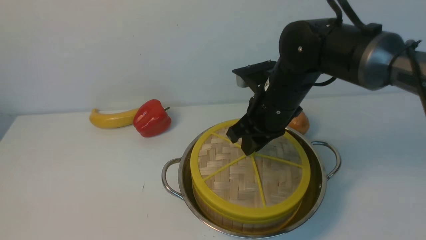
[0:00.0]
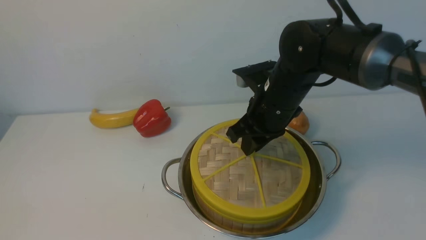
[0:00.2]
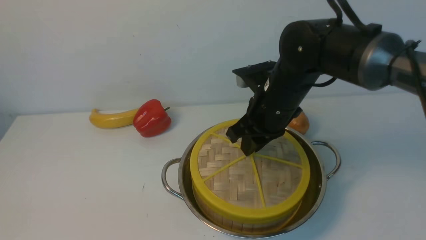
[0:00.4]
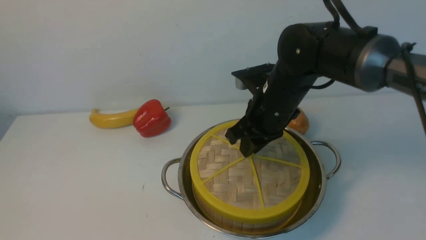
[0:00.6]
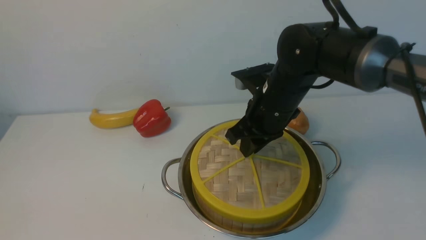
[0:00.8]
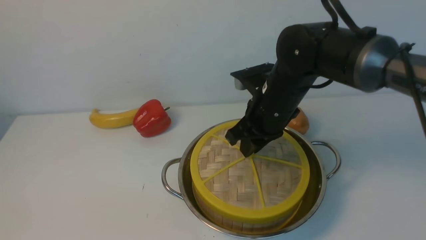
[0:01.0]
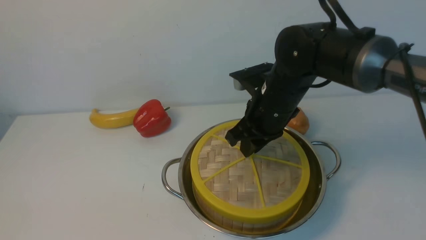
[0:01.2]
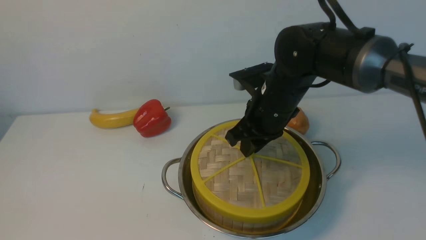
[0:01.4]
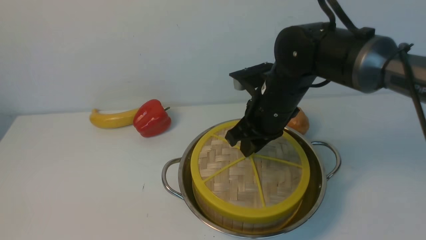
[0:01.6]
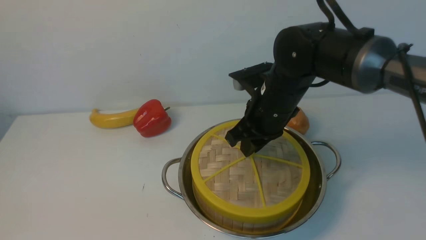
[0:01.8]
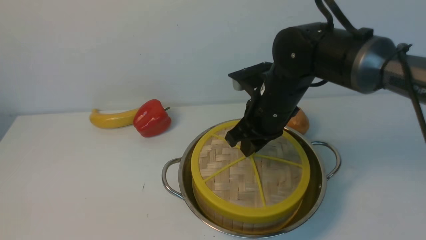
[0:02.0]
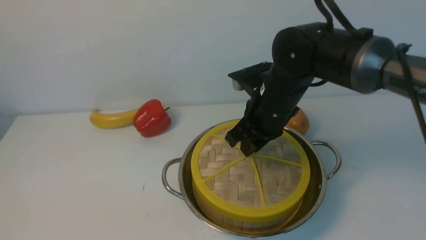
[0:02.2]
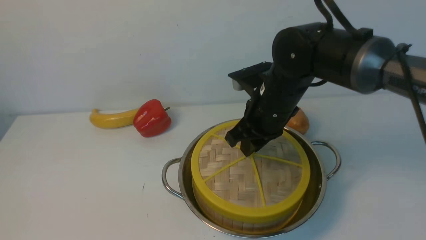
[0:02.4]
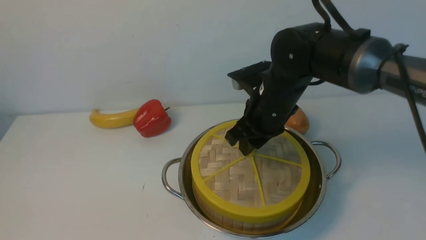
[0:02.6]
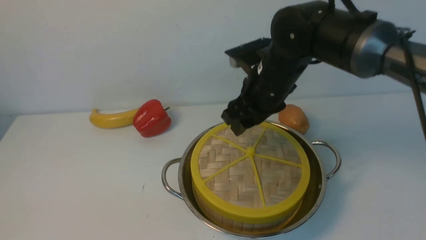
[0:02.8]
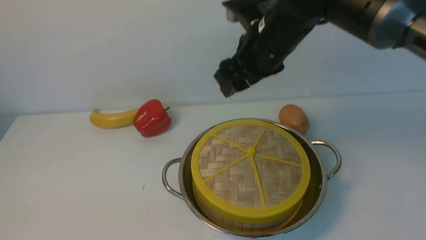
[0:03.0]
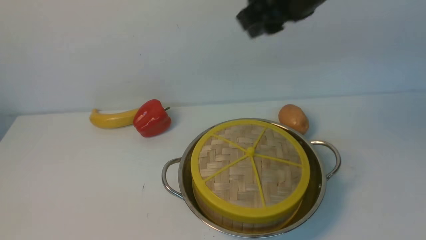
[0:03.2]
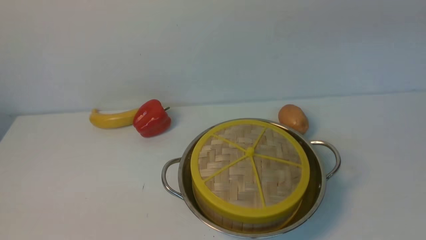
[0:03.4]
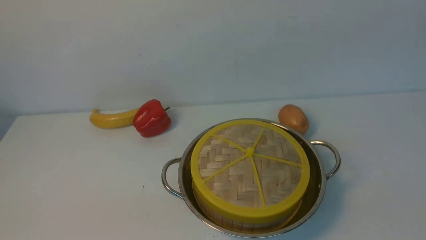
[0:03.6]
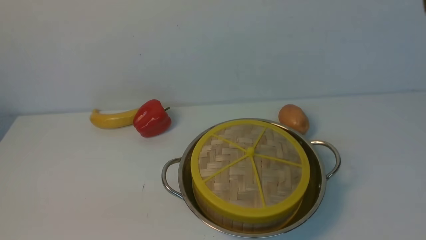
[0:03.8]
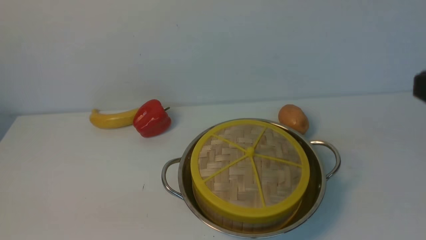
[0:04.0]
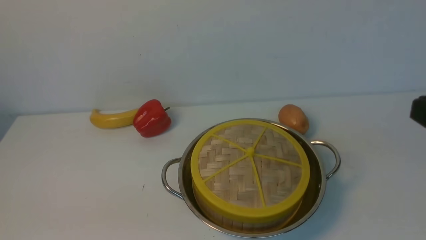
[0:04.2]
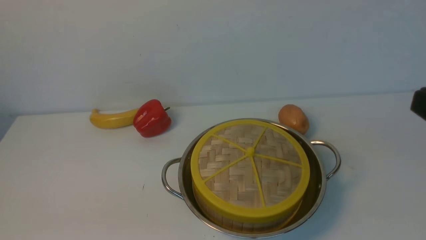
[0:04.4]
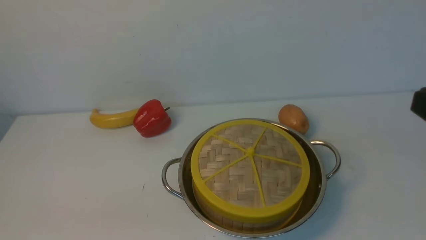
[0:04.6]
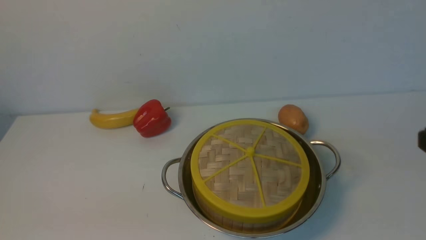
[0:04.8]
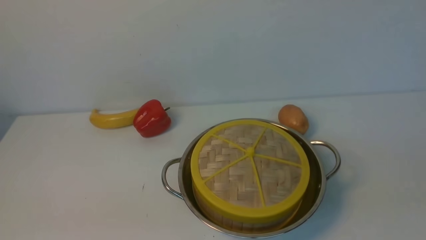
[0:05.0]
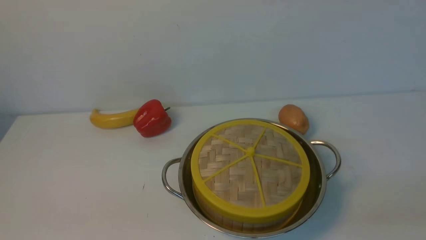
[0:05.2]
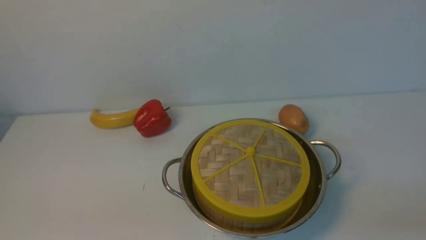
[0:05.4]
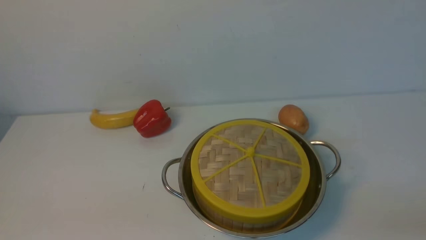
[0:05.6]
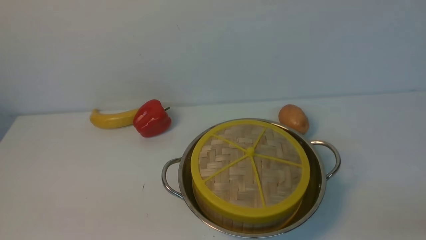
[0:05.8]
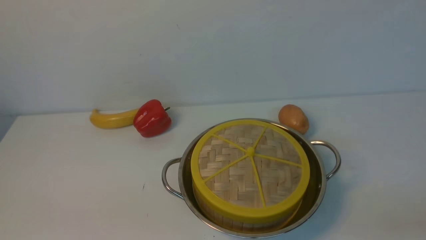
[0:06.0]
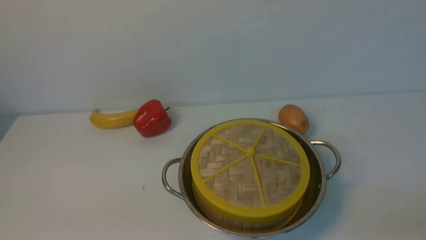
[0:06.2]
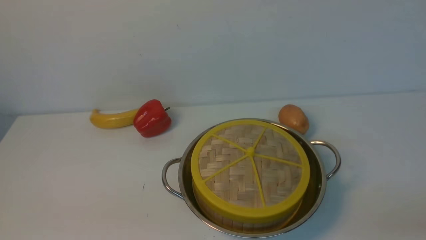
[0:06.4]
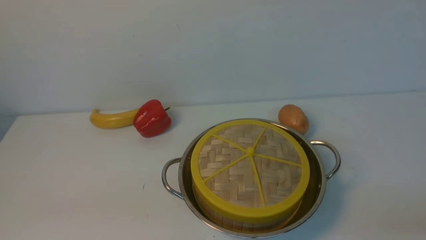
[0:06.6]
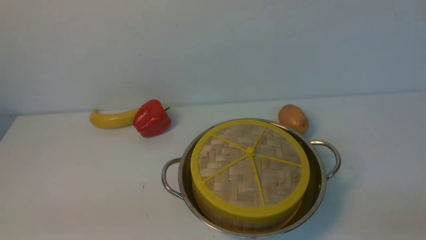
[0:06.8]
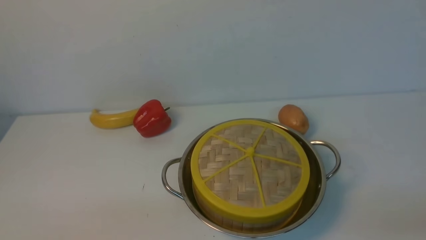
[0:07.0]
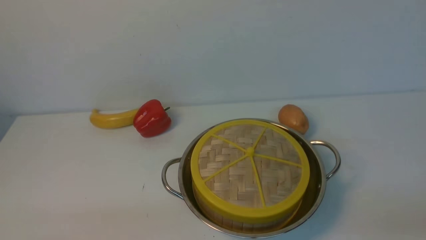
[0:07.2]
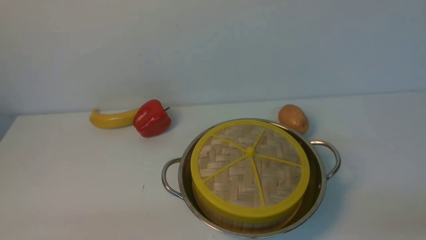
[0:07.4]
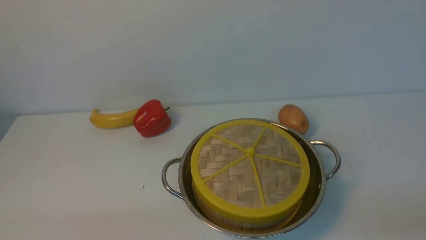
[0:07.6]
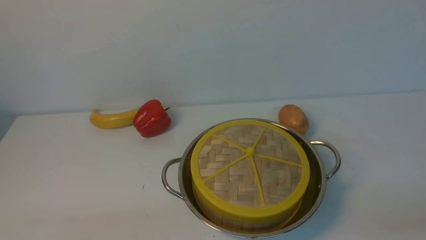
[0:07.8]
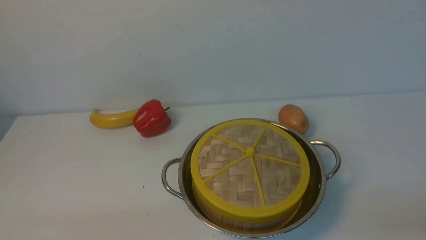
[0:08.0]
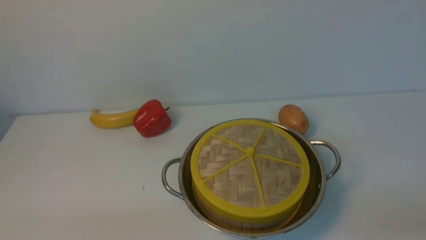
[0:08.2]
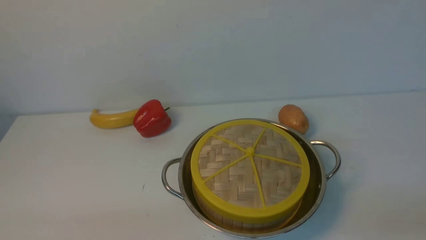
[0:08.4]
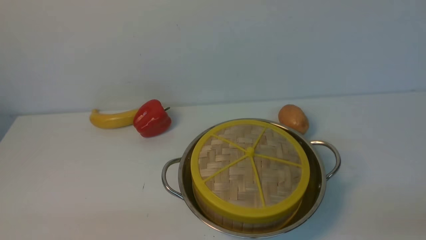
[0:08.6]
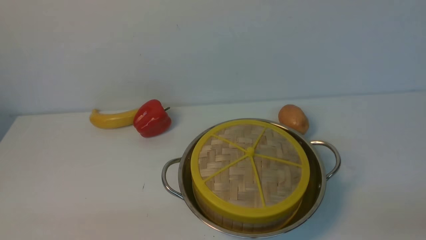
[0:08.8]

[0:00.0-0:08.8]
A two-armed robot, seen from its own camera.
Task of the whole recording: place the steamer in the pot on the white table, and put the lid on the steamer.
Step, 0:00.0 to 0:03.2: use the right arm to place the steamer lid on the steamer.
0:00.0 to 0:01.4: Both grippers stay put.
0:01.4 to 0:03.0: The right gripper goes about 10 cm upward, and opens its fingers.
0:03.0 to 0:04.4: The right gripper heads backward and to the right, covering roughly 30 cm, and closes its fingers.
0:07.4 to 0:08.8: The two grippers keep their place.
